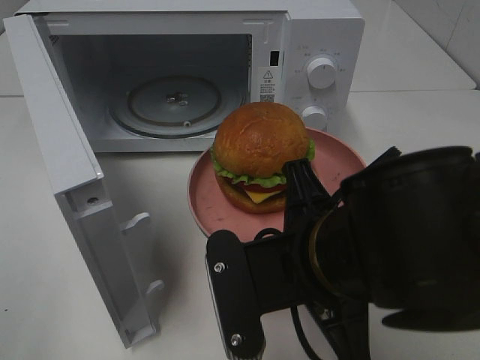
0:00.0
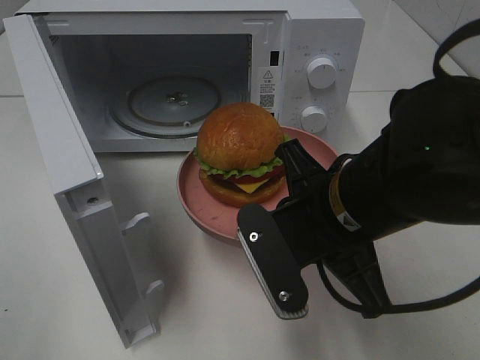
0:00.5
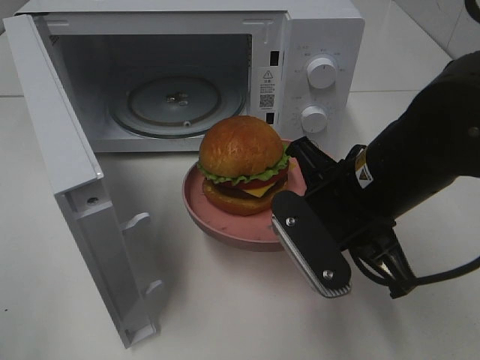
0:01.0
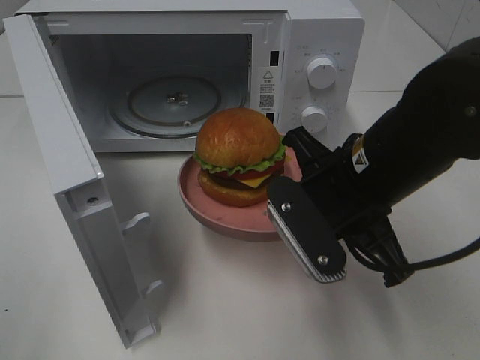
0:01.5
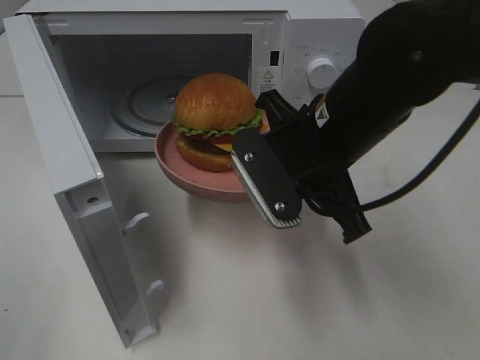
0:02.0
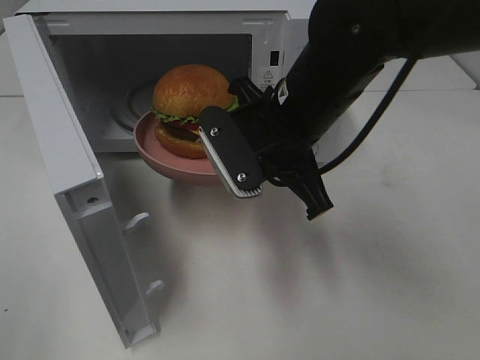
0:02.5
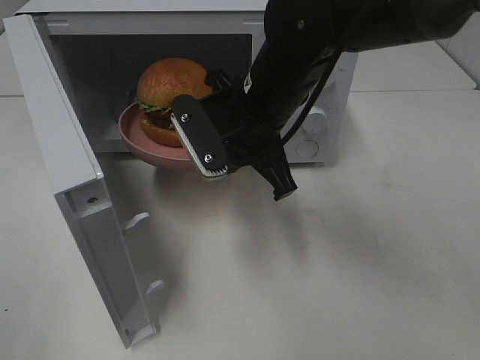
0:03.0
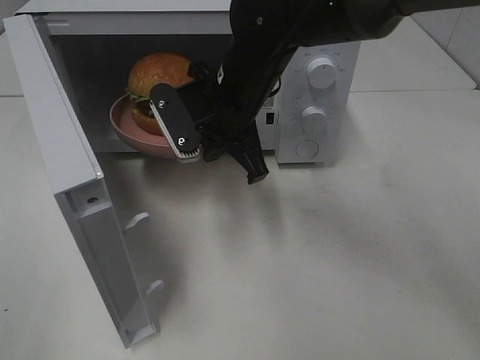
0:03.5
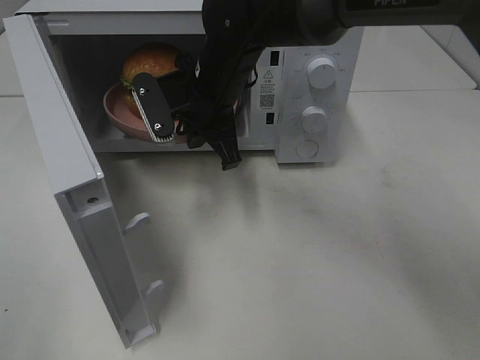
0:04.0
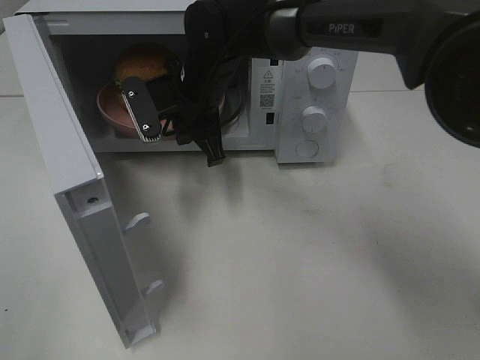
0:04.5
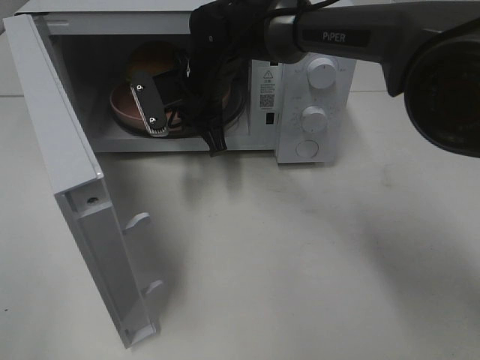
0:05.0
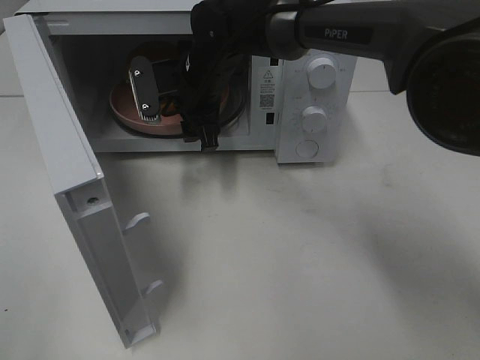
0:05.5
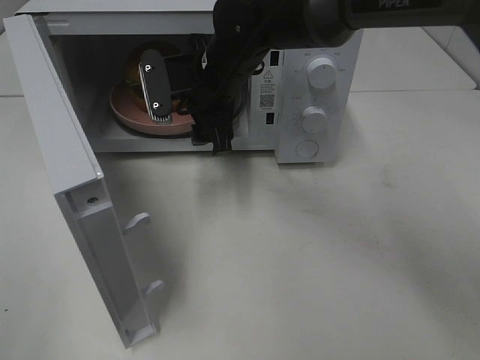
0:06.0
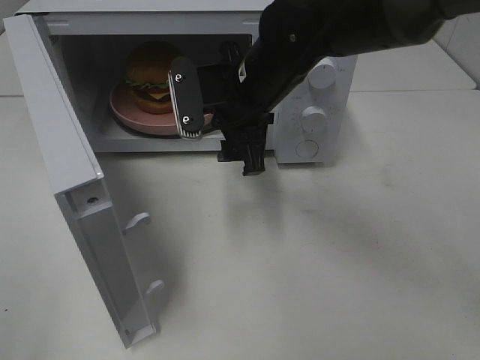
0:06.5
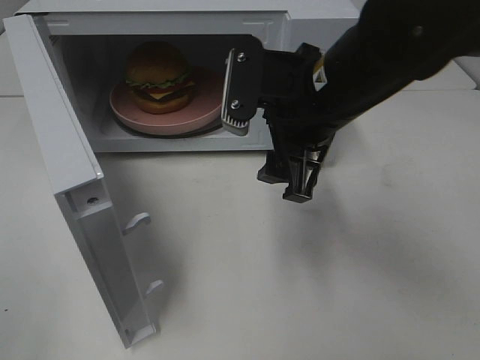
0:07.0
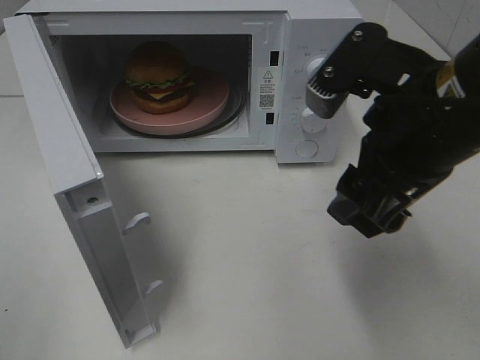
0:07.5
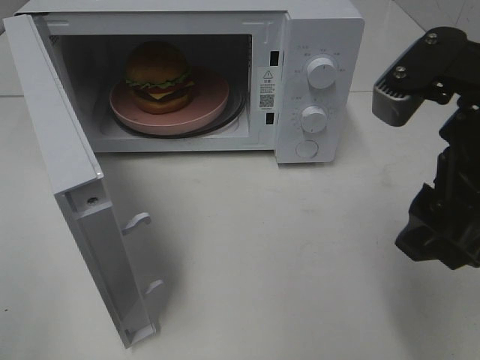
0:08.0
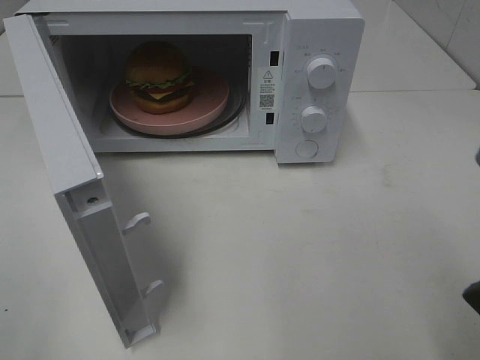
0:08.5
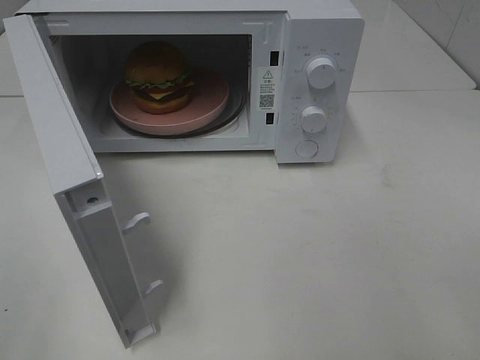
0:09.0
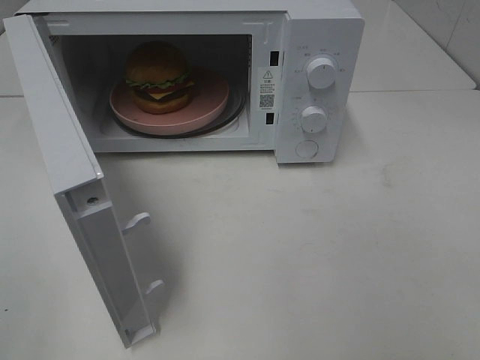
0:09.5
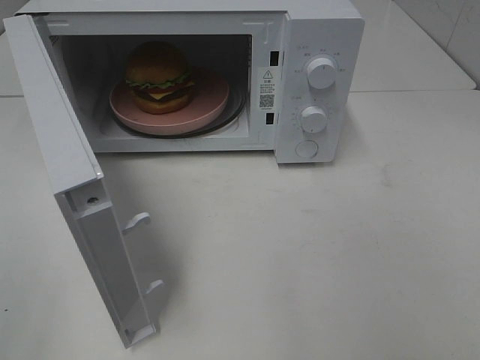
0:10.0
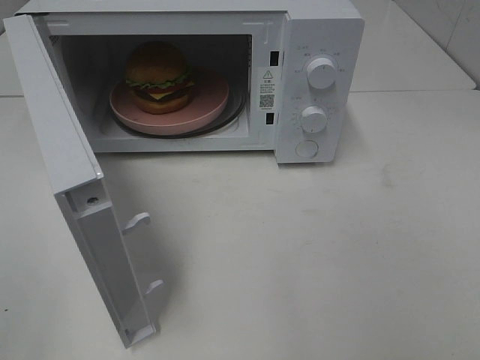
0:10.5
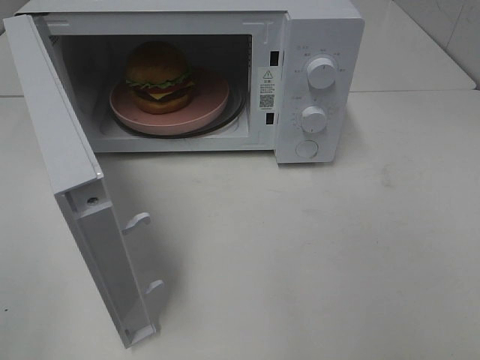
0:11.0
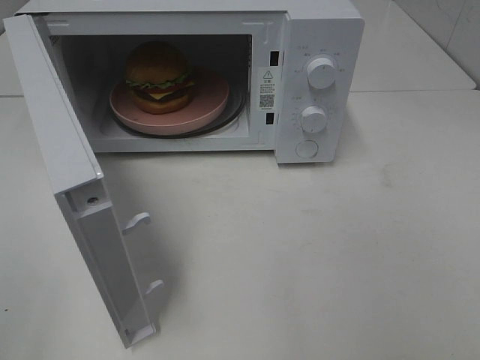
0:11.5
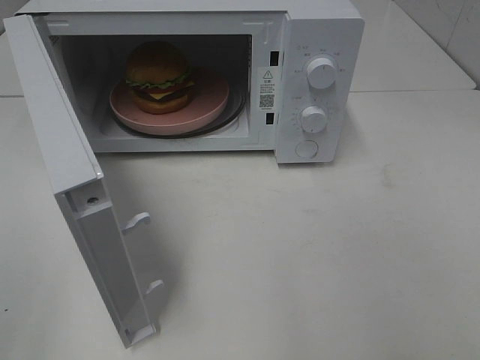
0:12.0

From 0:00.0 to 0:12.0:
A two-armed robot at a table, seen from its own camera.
Task of the whole recording: Heat the burger.
Step, from 0:00.0 to 0:05.5: Right hand: place the plate in the microwave.
From 0:00.0 to 0:02.0: The right gripper travels forward by some 10 cm.
From 0:02.0 to 0:04.0: The right gripper heads forward and to the left, covering approximately 15 cm.
From 0:04.0 to 0:06.0: The right gripper opens.
From 0:06.0 to 0:08.0: The right gripper heads backward, to the right and upward, covering some 30 cm.
From 0:08.0 to 0:10.0: The right gripper heads backward and to the right, covering approximately 20 cm.

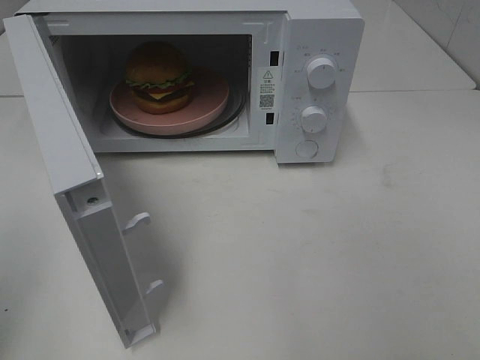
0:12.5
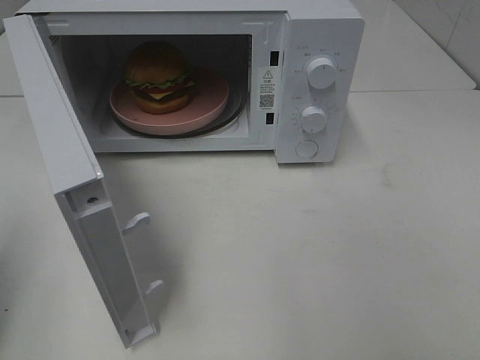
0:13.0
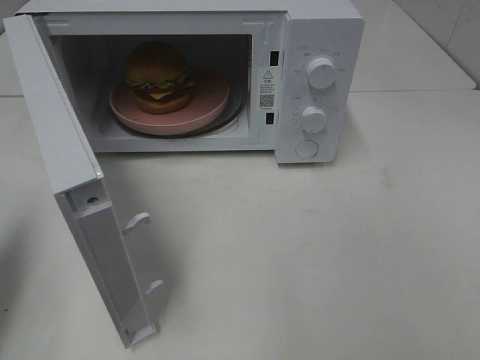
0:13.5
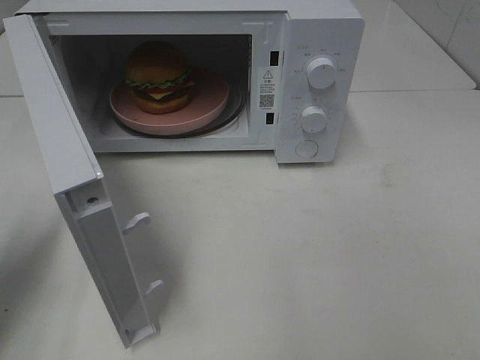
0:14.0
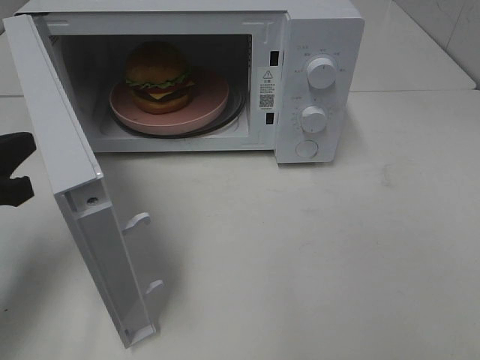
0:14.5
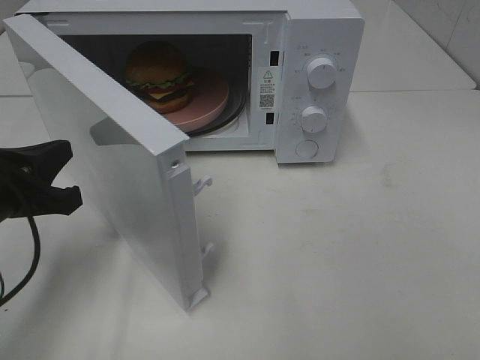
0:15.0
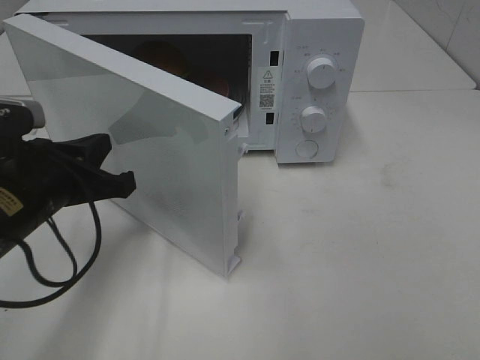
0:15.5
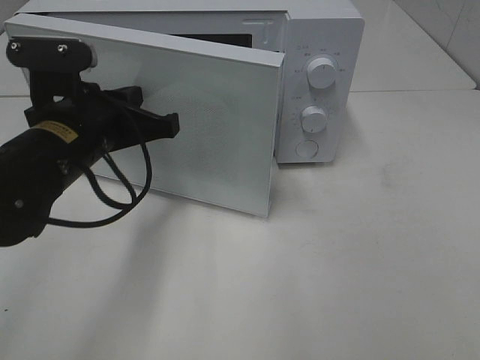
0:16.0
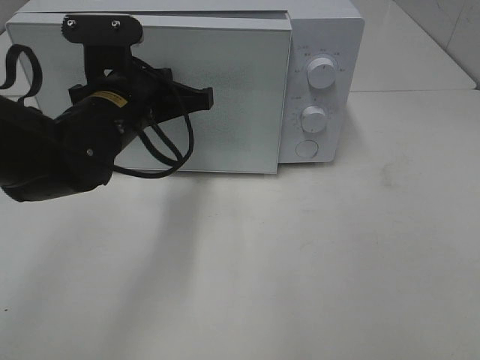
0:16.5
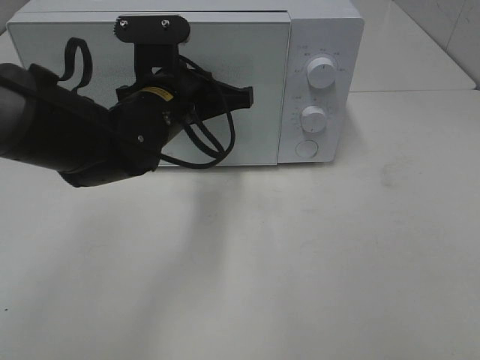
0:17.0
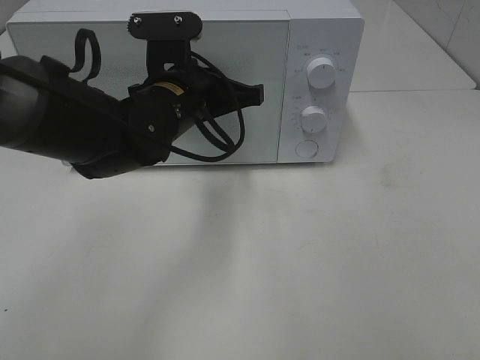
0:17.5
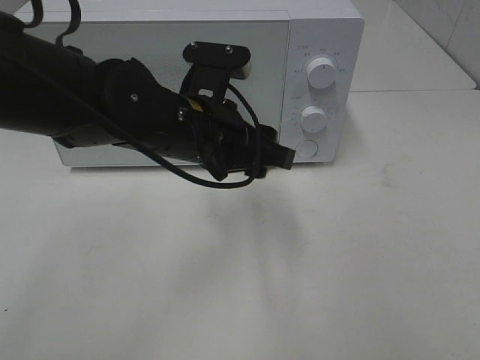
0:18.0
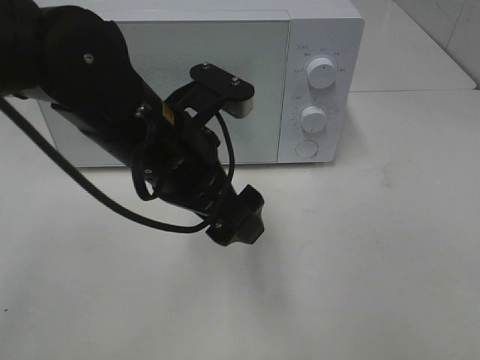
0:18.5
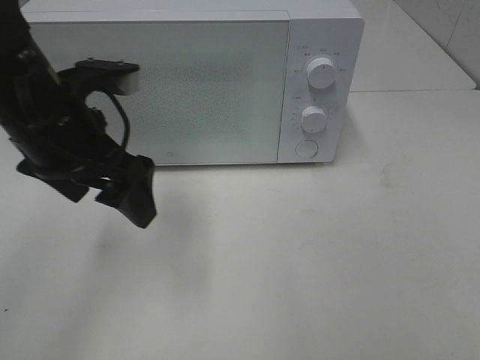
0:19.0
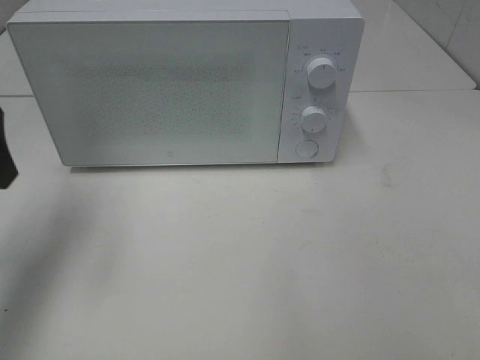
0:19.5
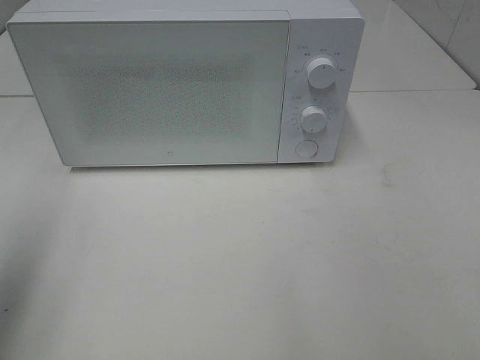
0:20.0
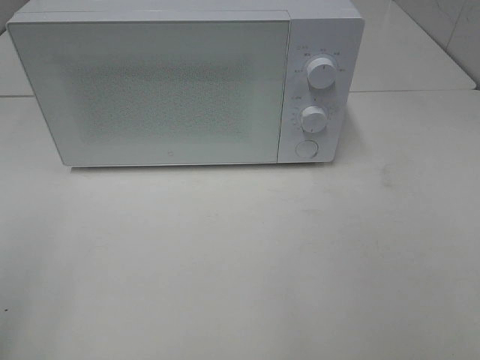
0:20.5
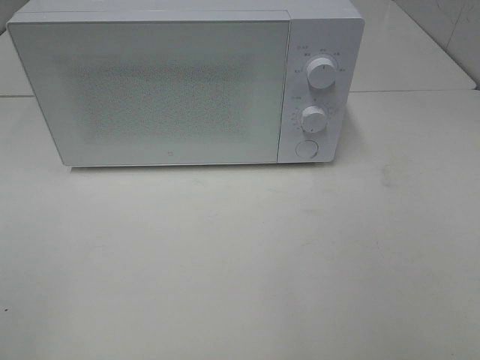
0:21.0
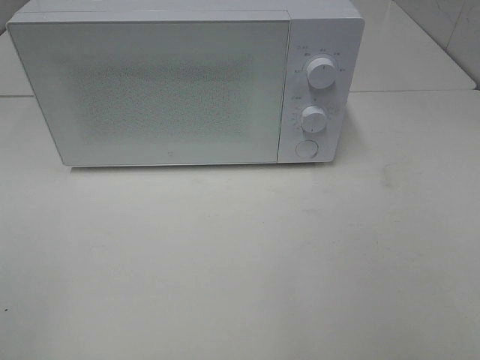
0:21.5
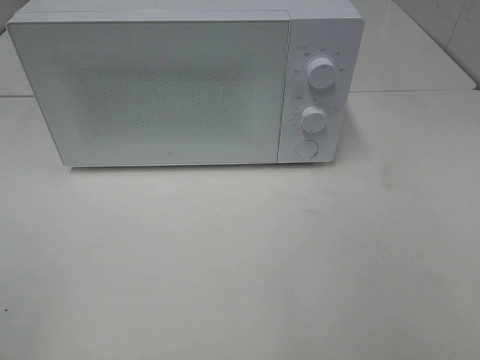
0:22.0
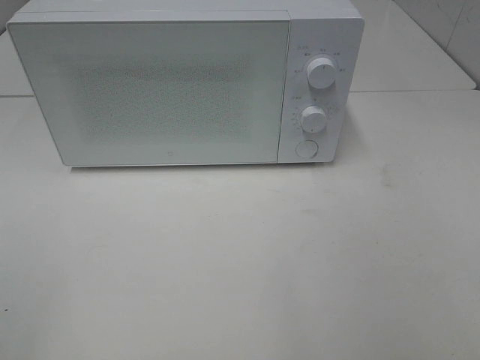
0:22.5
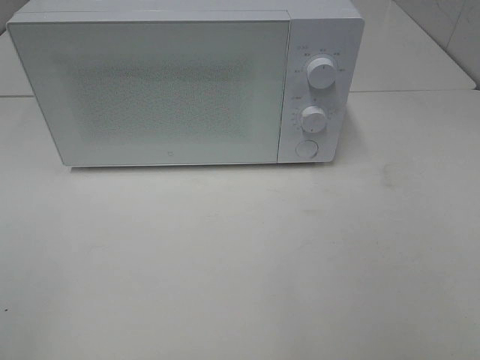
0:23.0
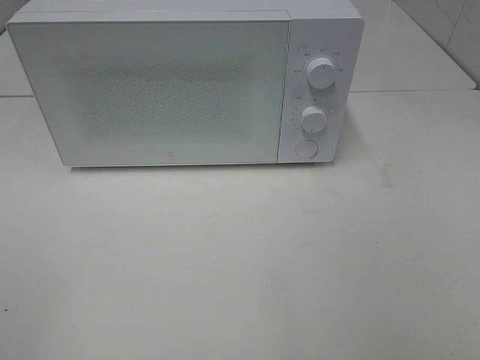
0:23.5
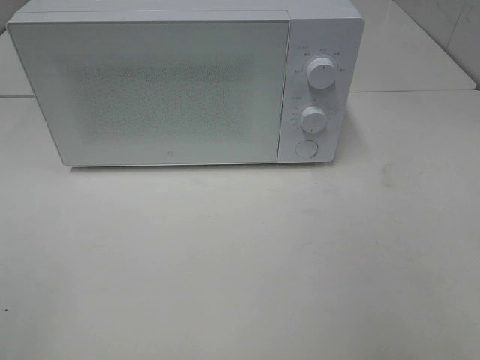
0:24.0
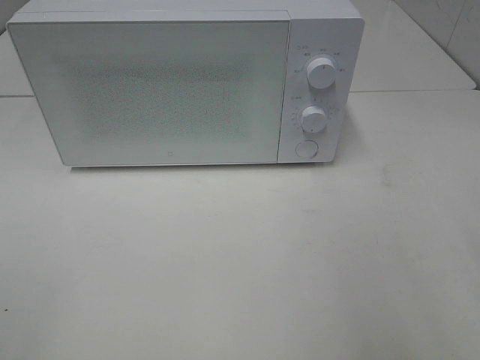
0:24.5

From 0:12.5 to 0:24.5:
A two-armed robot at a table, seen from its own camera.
Task of the whole recording: Heat the burger.
Step, from 0:12.5 to 0:17.5: Left hand: close the microwave door.
From 0:12.5 to 0:14.5: The left gripper goes about 20 cm forward and downward.
From 0:14.5 to 0:16.5: The left gripper travels to the right and forward by approximately 20 cm.
From 0:16.5 to 0:18.5: The left gripper shifts roughly 10 cm backward, and opens up.
From 0:18.5 to 0:20.5: The left gripper goes roughly 30 cm to the left and backward.

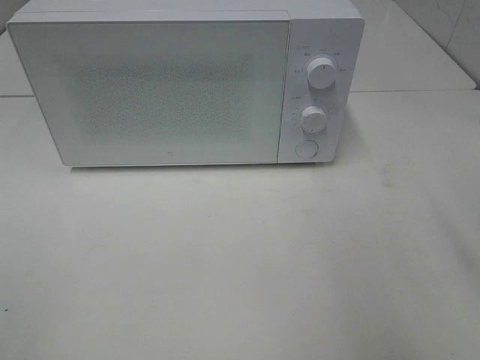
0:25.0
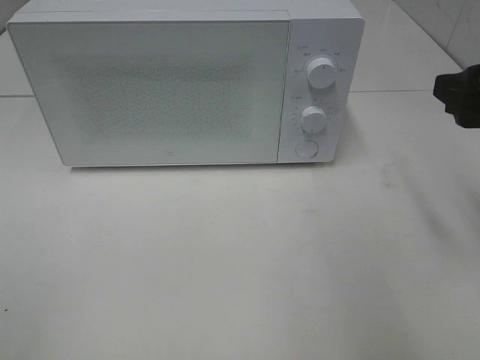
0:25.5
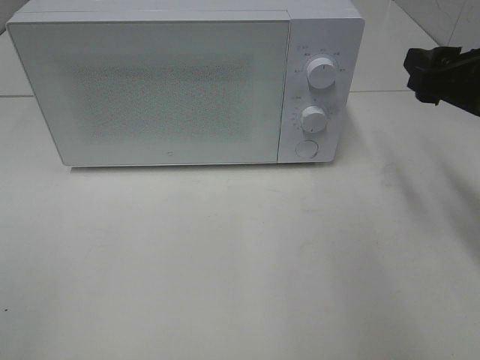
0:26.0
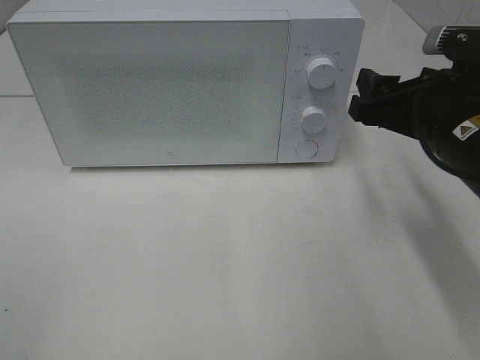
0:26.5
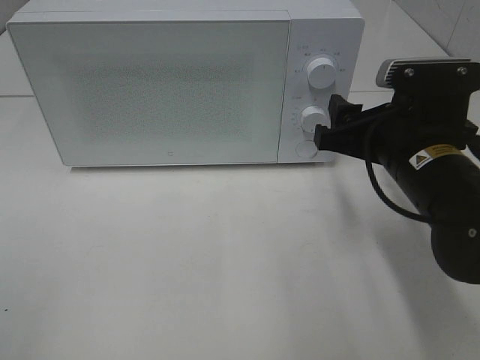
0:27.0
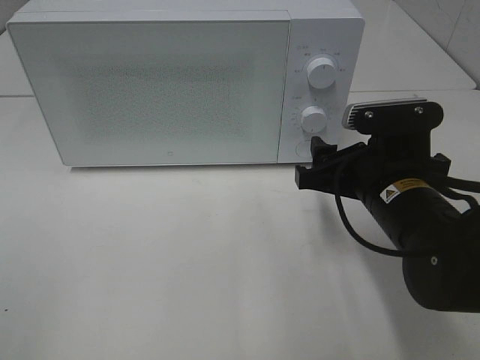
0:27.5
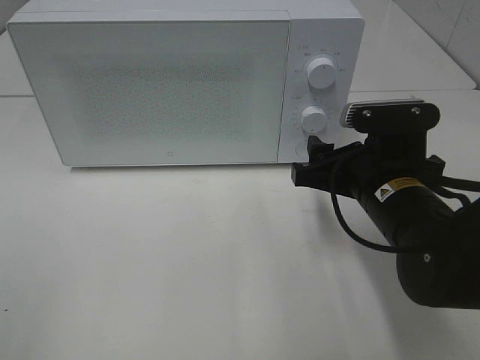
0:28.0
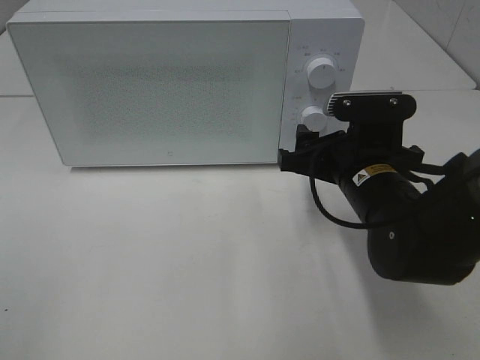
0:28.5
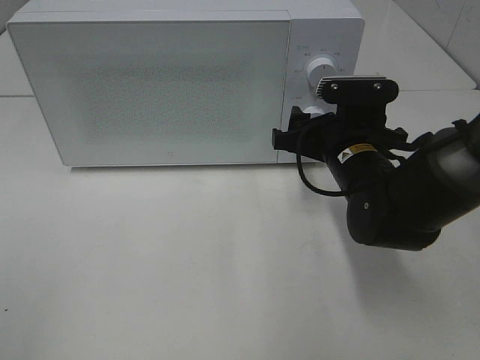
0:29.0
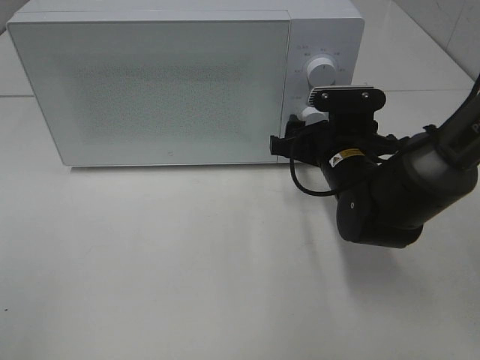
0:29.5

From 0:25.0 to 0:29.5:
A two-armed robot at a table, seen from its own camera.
Task of the whole recording: Heat the burger.
From 0:25.0 to 0:27.0: The right gripper goes about 15 cm to the left, downward and forward.
From 0:27.0 to 0:29.5: The right gripper shifts about 10 cm forward and downward.
